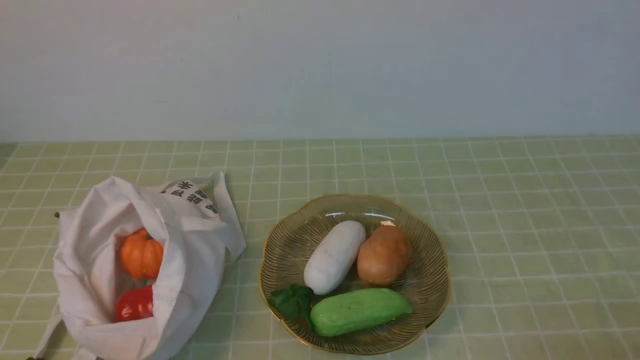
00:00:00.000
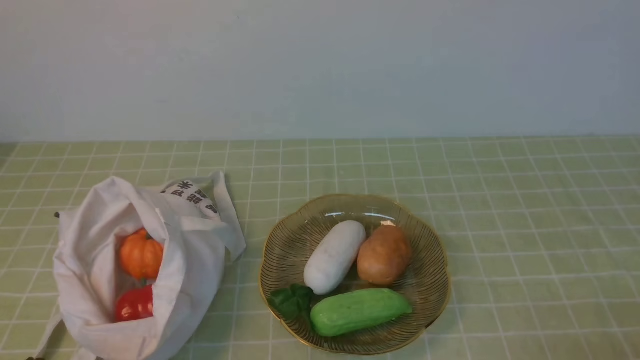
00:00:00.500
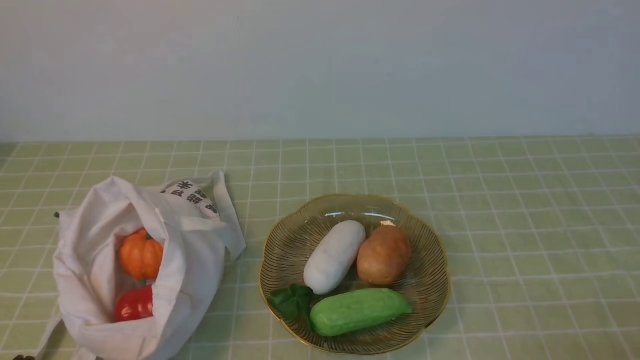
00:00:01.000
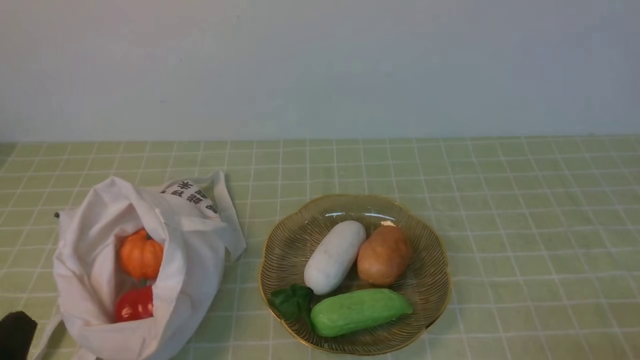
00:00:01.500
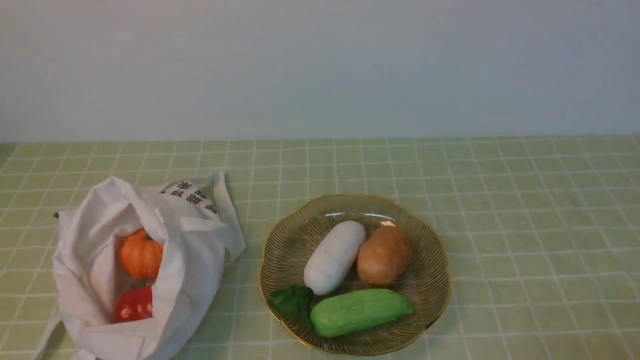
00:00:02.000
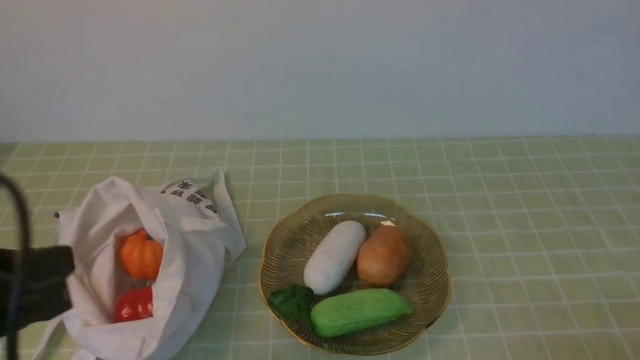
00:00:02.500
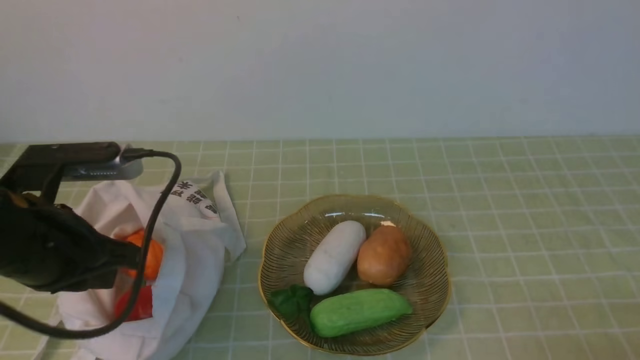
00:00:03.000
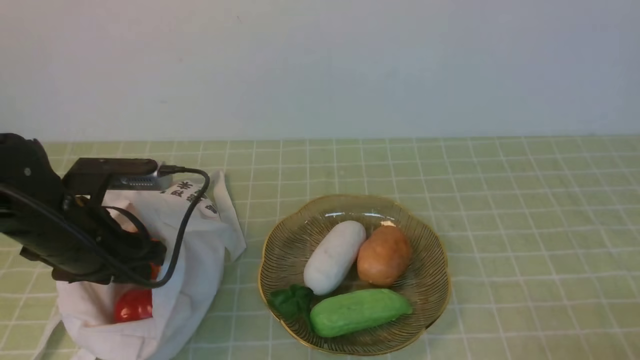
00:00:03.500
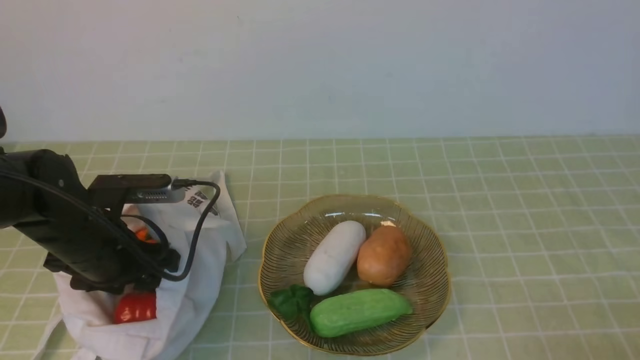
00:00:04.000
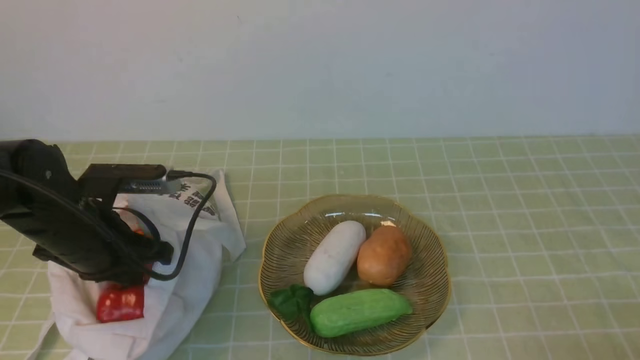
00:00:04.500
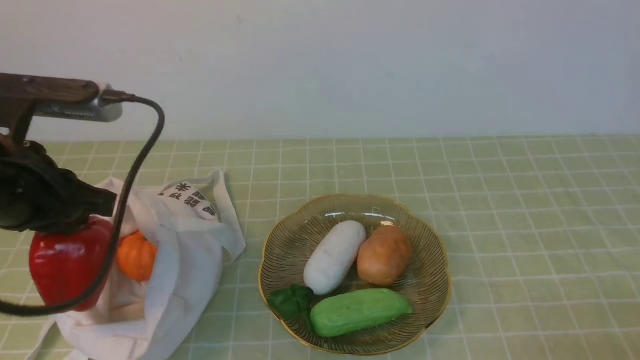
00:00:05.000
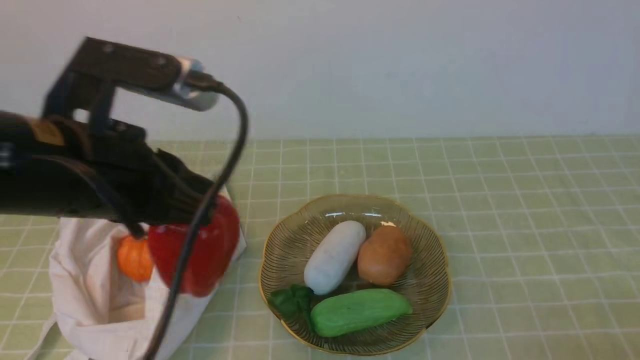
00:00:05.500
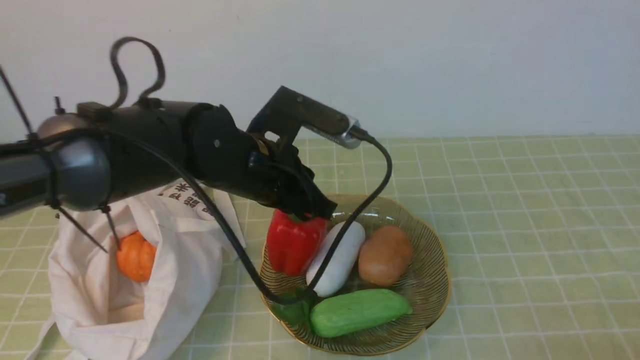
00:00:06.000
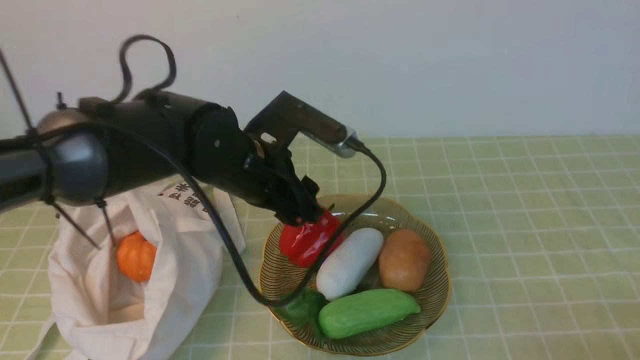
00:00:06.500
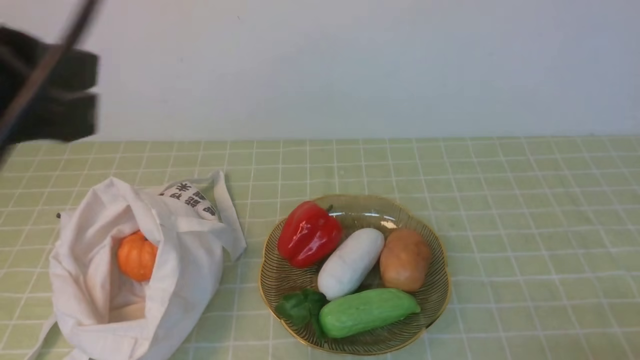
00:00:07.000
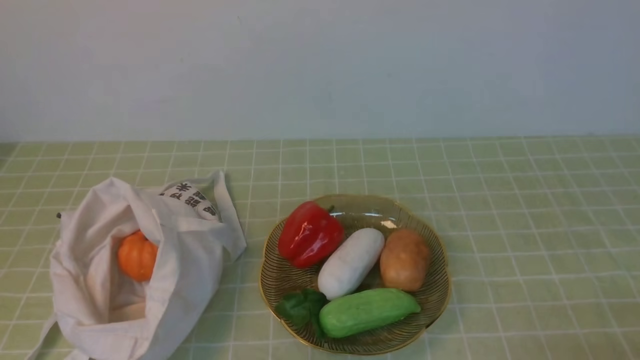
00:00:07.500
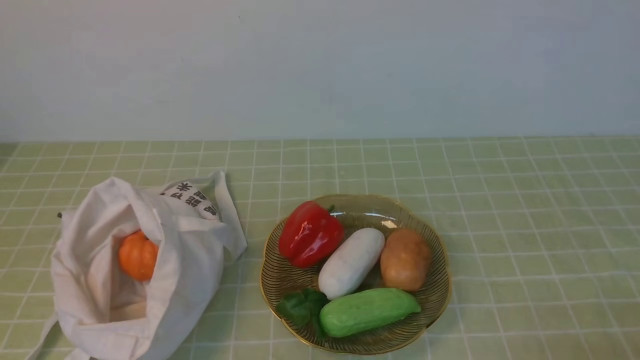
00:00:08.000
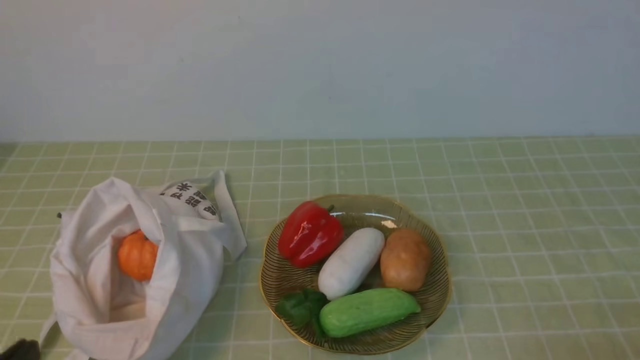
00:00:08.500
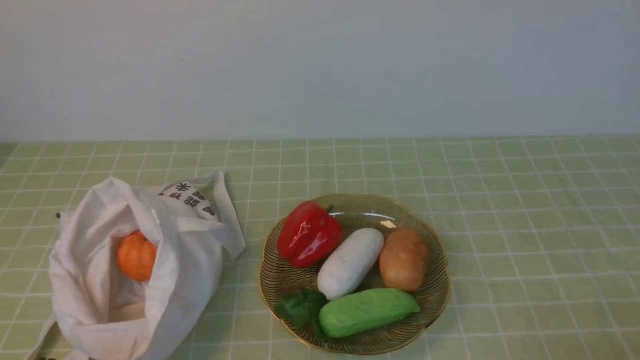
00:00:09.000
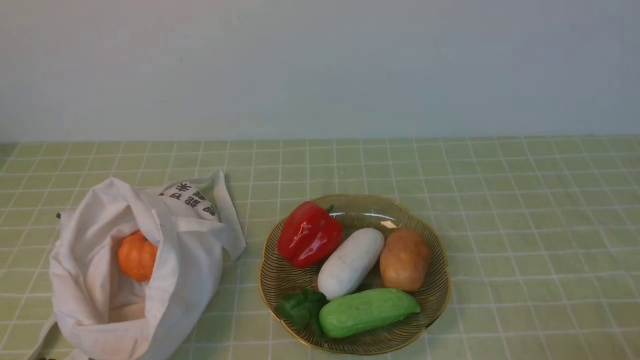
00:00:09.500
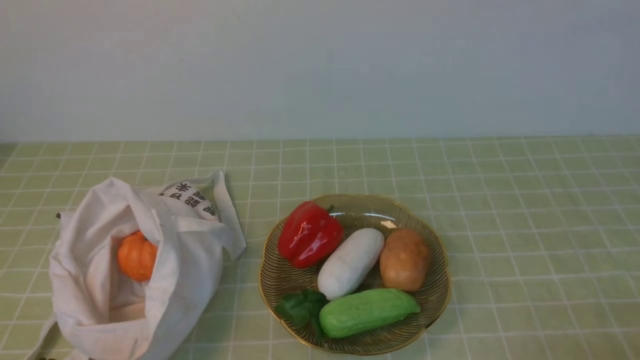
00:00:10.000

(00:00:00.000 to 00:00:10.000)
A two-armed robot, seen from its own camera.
Task of the whole recording: take vegetables from bag on green coffee tablecloth place on plate.
Step, 00:00:00.000 - 00:00:04.000: Grasp the bell pepper with left gripper.
Step, 00:00:04.500 - 00:00:06.000: Place the bell pepper on the plate with left gripper.
00:00:02.000 - 00:00:04.000: The left gripper travels forward by about 25 cm, and opens its fingers.
00:00:04.000 - 00:00:06.000: The left gripper shifts approximately 15 cm to the right and upward, and closes up.
00:00:06.000 - 00:00:08.000: The left gripper shifts roughly 30 cm backward and to the left, and opens, then closes once more.

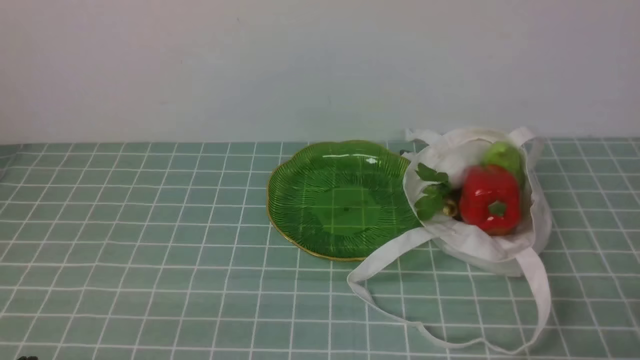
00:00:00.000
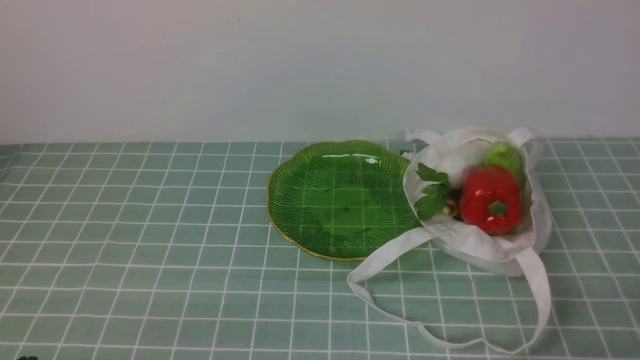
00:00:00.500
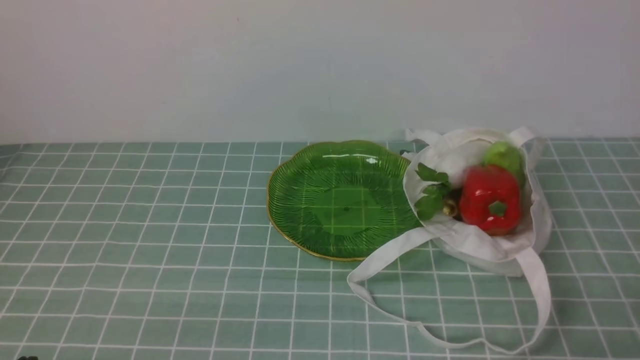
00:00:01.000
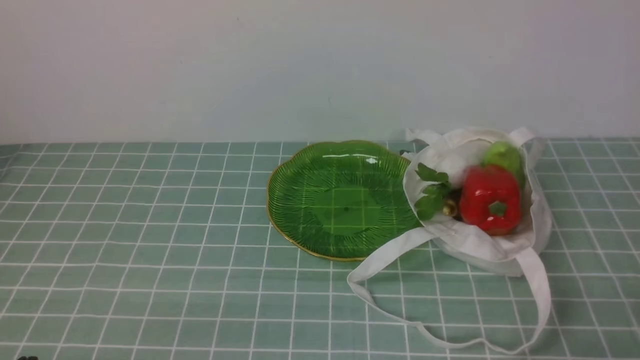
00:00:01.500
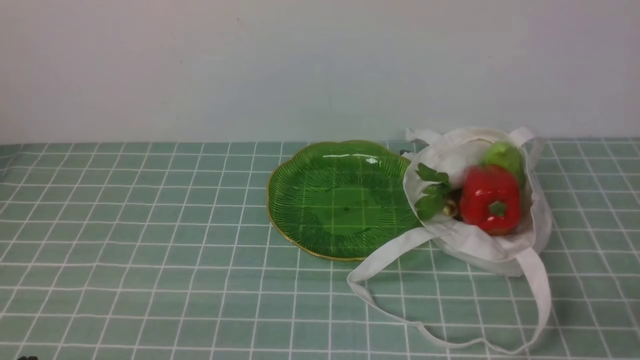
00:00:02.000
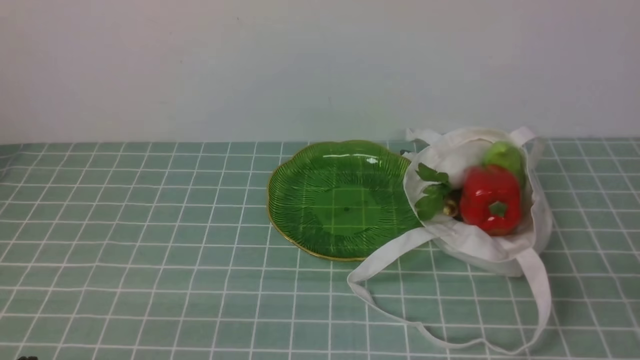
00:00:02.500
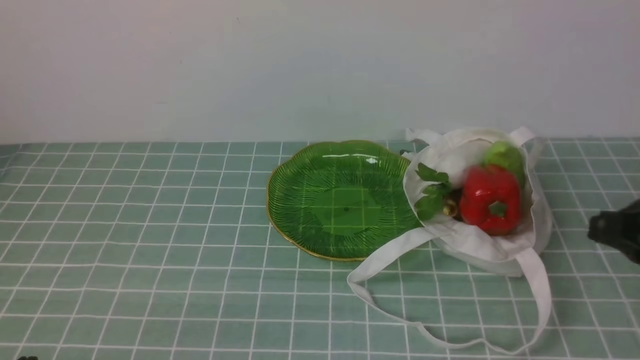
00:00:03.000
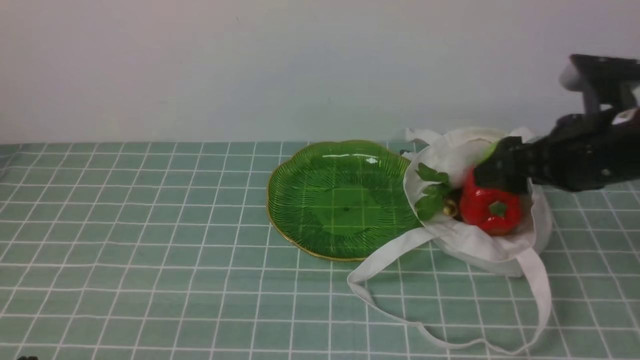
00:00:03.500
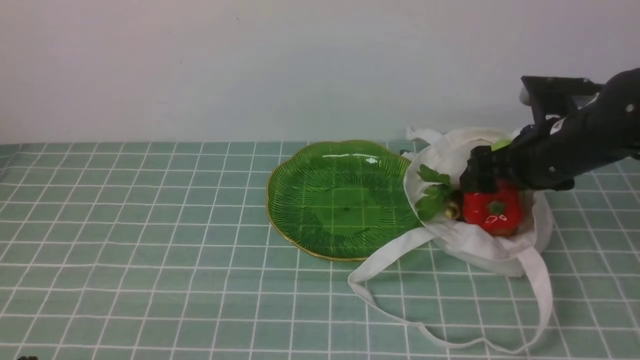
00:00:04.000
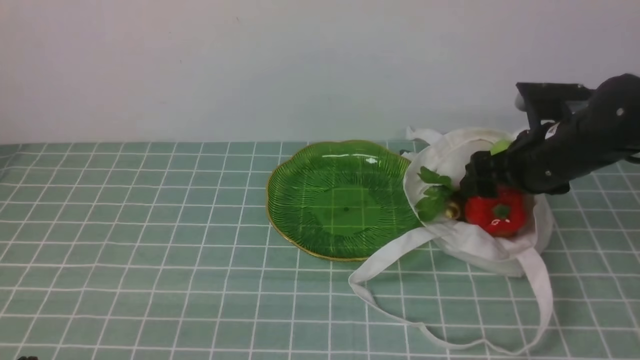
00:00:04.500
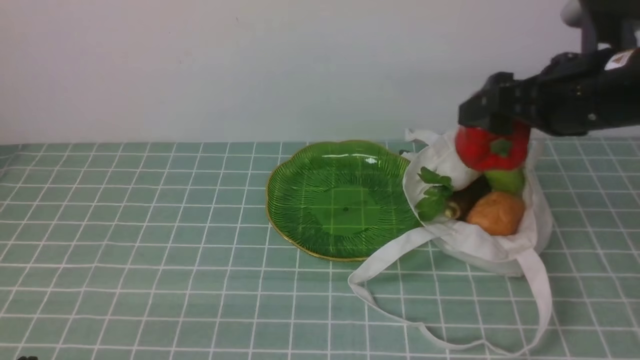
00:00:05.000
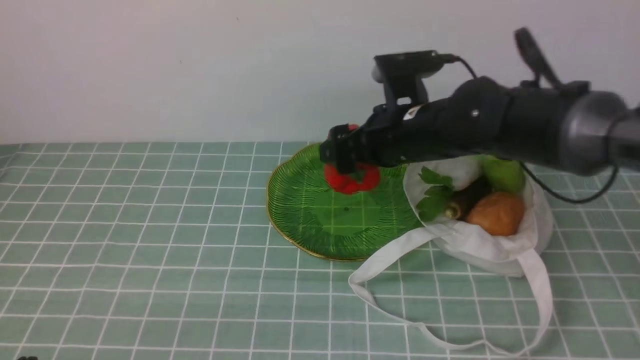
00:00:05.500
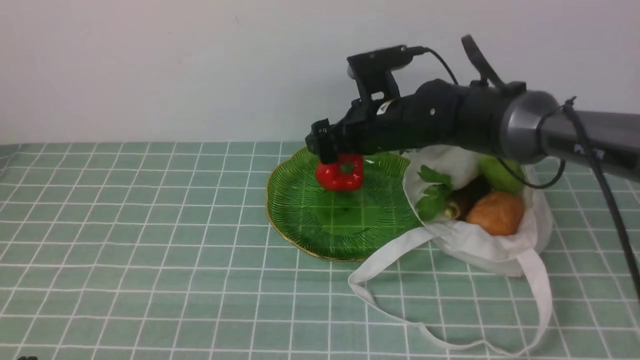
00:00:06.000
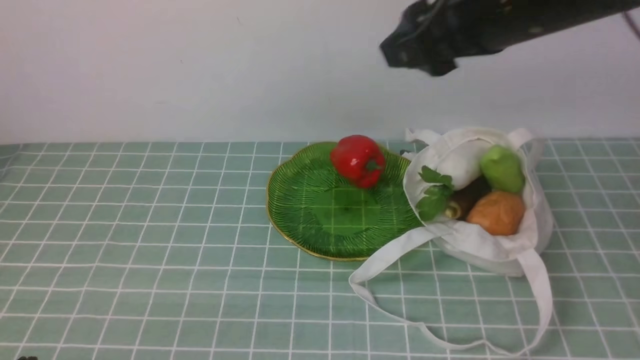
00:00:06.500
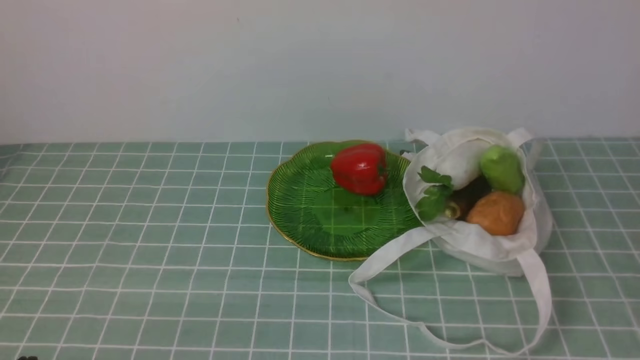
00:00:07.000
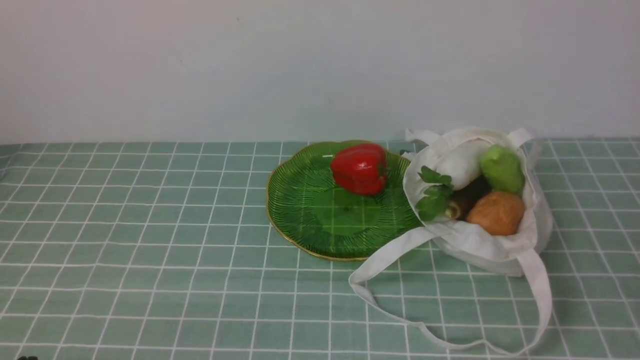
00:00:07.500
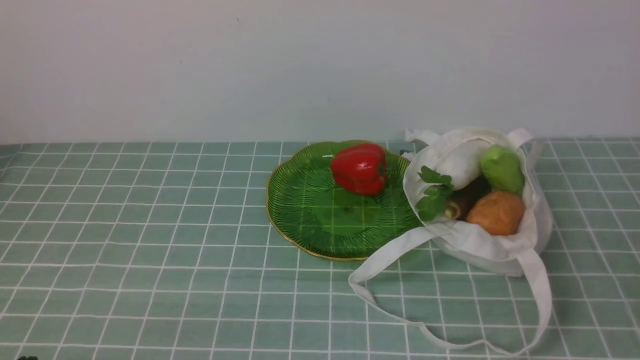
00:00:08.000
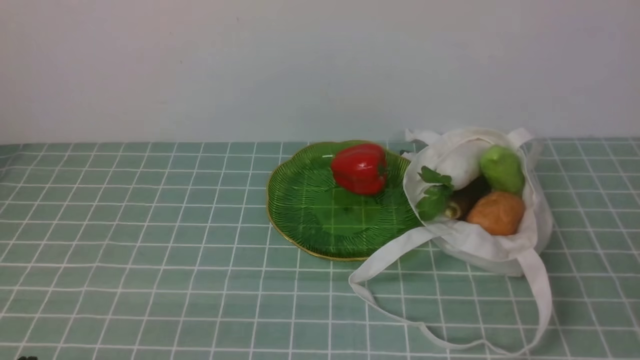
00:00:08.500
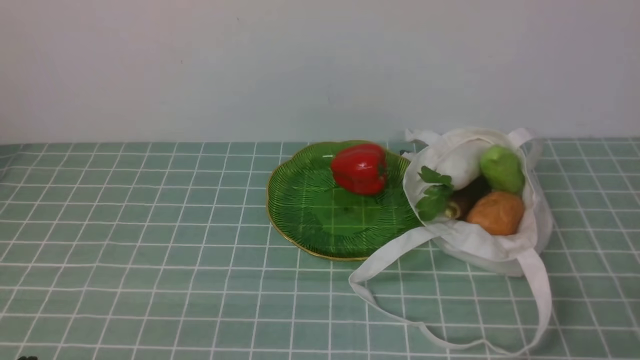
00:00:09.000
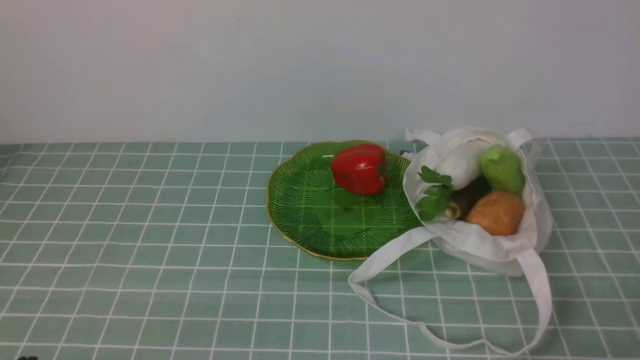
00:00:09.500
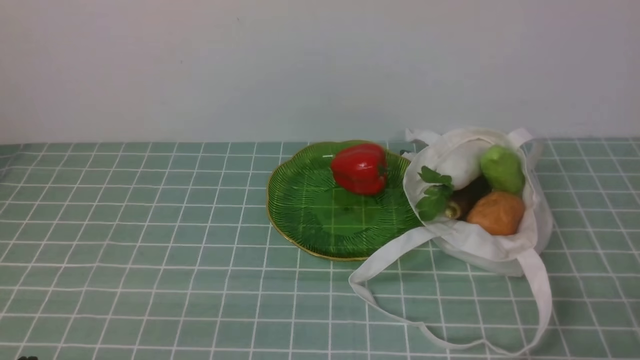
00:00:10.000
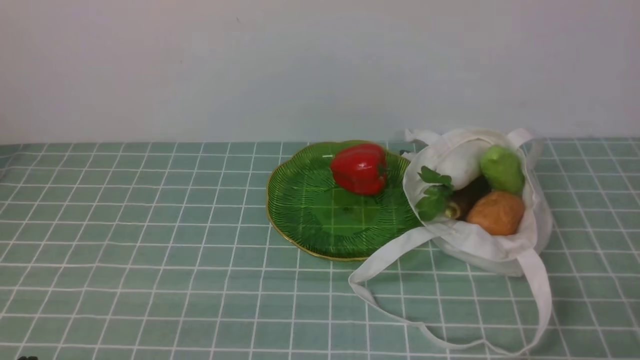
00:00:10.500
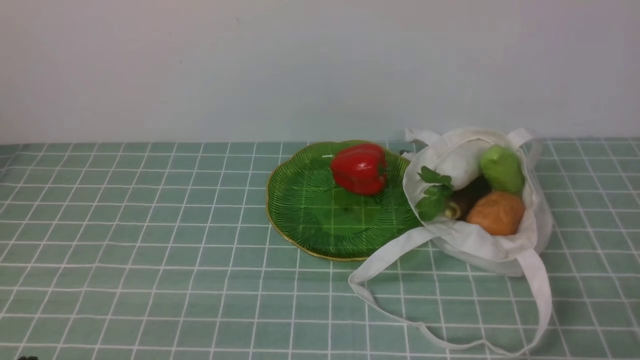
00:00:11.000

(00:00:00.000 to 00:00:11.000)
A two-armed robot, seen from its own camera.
Task of the whole recording: take vegetables from cloth bag on blue coffee tablecloth place on plate.
Step, 00:00:00.000 - 00:00:04.000: Grasp the bell pepper with right gripper.
Step, 00:00:04.500 - 00:00:06.000: Place the bell pepper on the plate with right gripper.
00:00:02.000 - 00:00:03.500: The right gripper is displaced forward by about 25 cm, and opens.
00:00:03.500 - 00:00:05.500: The right gripper heads to the left and forward, covering roughly 20 cm.
00:00:05.500 - 00:00:07.500: The right gripper goes roughly 40 cm backward and to the right, and closes its fingers.
